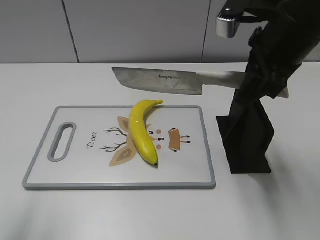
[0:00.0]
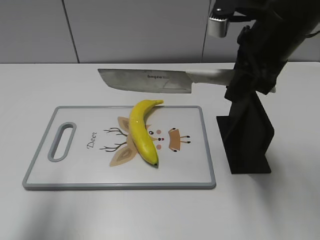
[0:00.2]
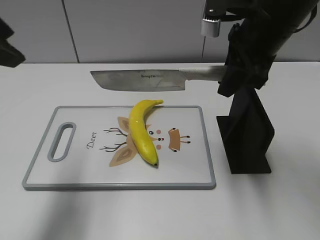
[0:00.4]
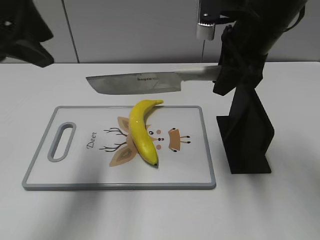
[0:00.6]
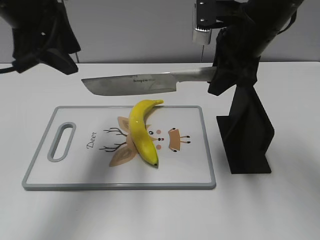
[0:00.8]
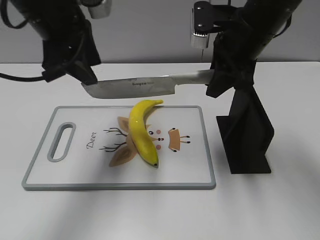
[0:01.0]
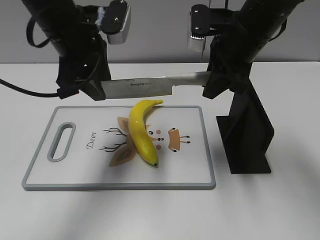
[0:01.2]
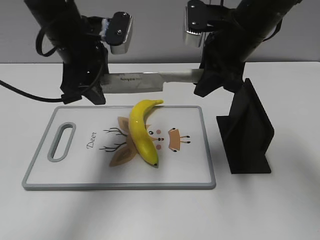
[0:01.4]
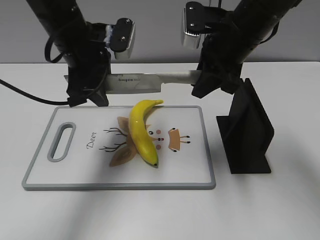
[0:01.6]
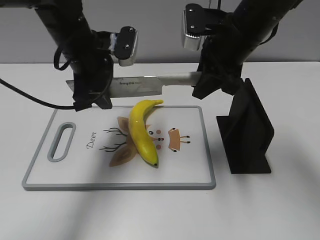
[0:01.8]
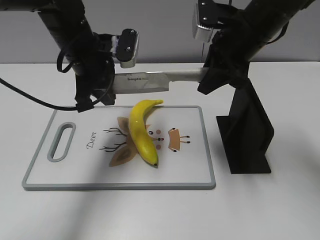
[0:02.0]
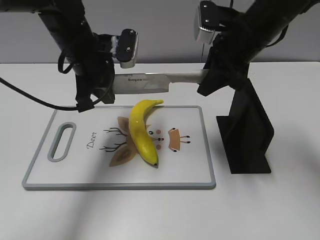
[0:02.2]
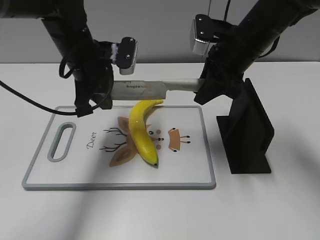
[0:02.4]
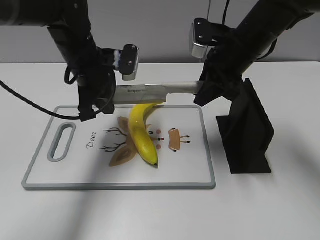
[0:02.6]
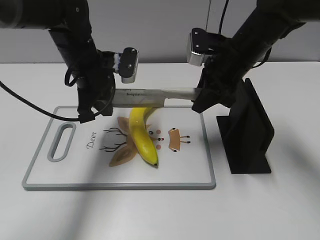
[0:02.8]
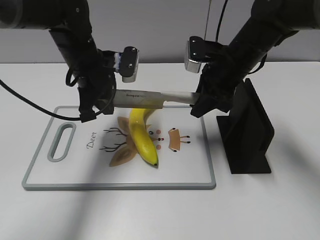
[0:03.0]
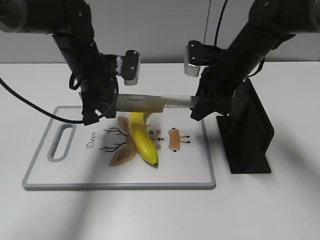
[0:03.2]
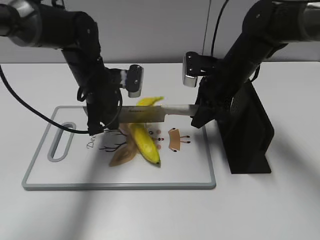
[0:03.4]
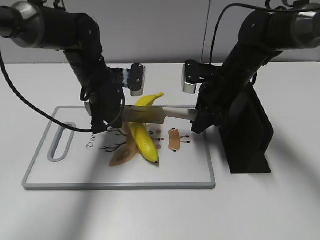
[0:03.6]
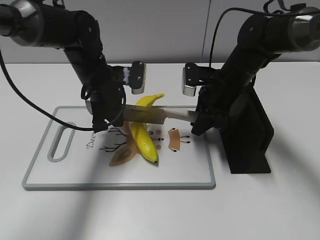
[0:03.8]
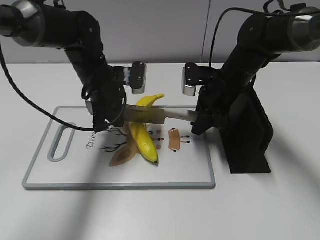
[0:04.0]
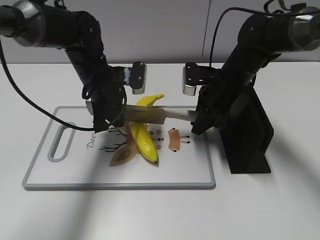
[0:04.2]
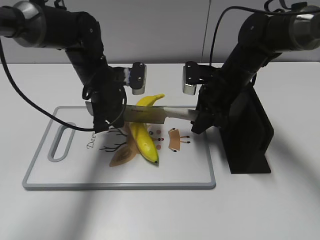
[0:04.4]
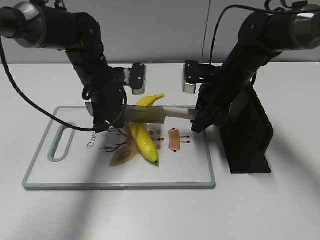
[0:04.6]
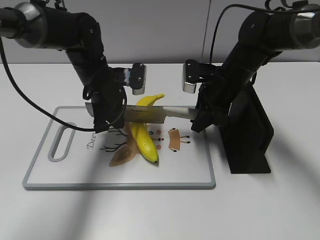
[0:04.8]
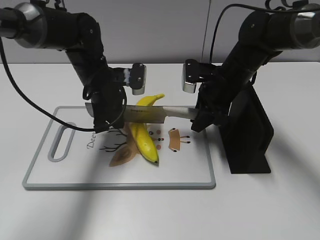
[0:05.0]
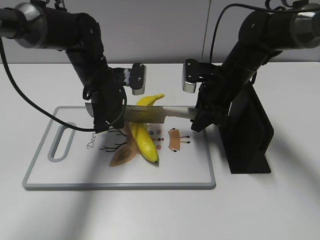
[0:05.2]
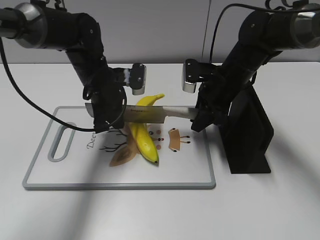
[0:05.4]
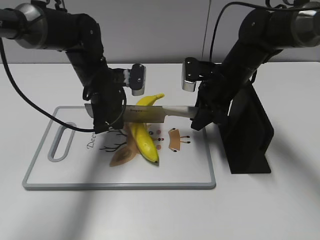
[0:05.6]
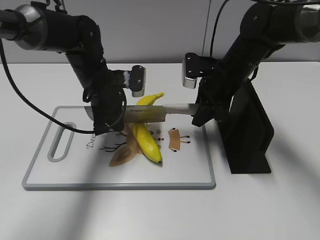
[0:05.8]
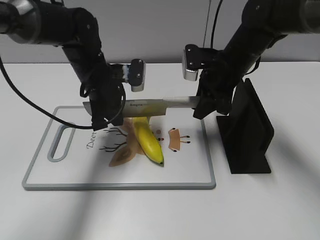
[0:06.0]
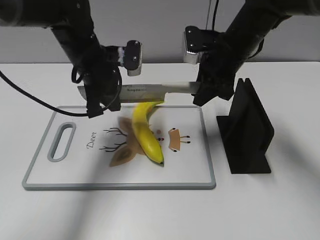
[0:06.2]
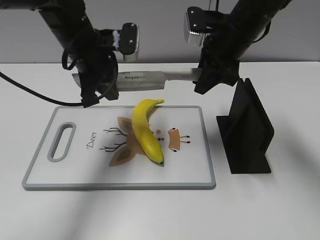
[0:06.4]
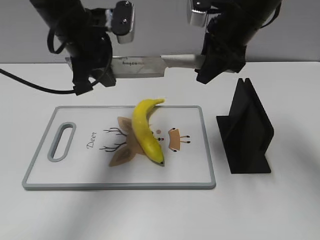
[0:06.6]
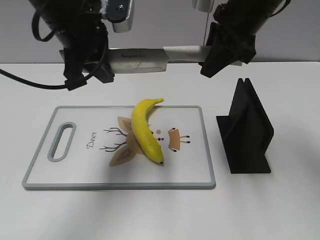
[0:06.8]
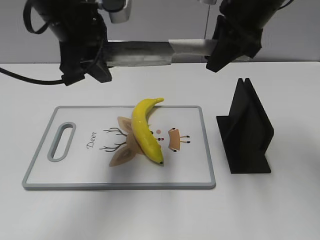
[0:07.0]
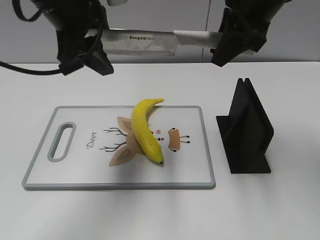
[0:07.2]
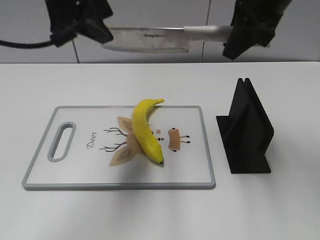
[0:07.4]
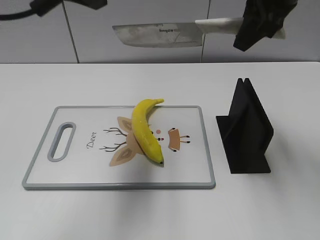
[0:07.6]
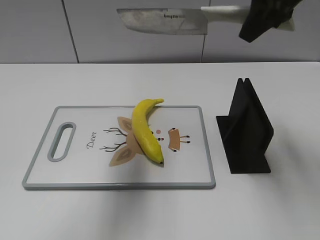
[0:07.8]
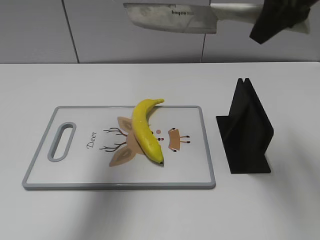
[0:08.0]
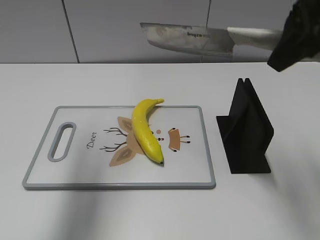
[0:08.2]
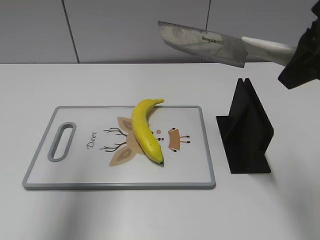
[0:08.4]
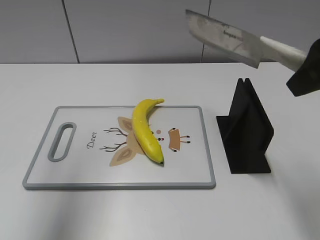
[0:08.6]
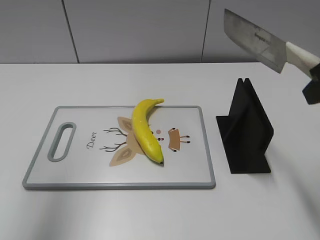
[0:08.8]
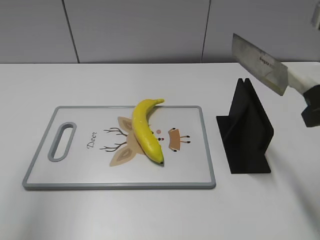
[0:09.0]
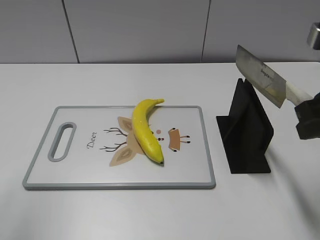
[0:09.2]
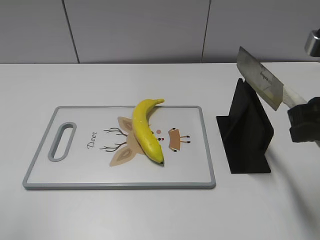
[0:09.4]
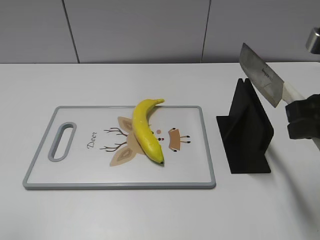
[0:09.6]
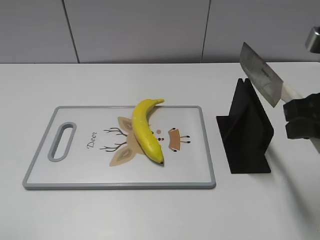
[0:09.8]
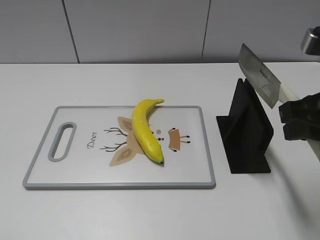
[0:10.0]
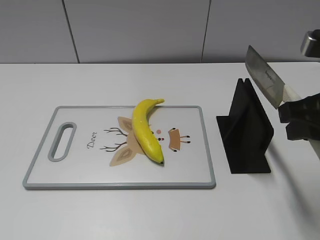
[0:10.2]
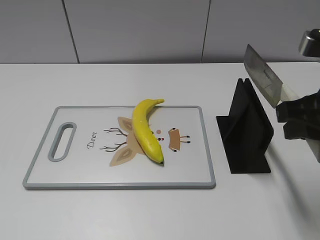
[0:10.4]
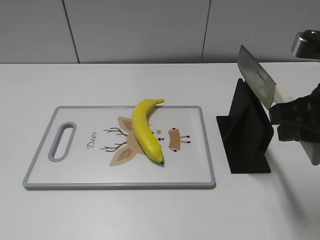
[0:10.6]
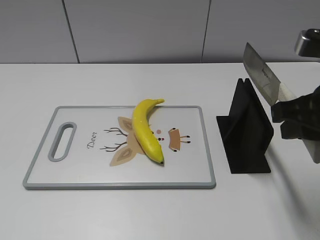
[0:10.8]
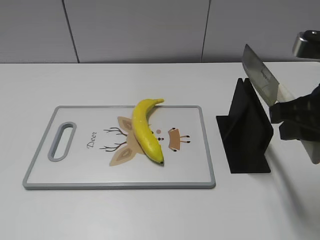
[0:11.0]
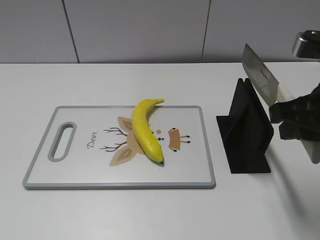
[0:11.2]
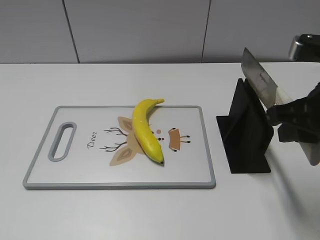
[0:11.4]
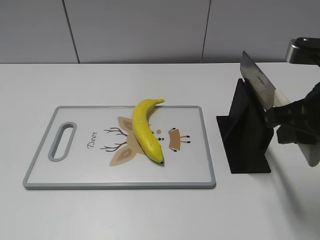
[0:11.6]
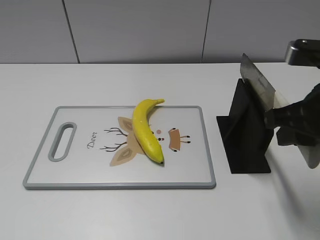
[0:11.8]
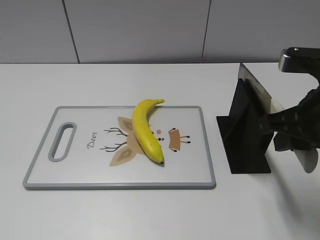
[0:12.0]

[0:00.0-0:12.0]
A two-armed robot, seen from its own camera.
Task of the whole recording: cut plastic banana.
Step, 0:00.0 to 0:04.4: Hold the blade with your left hand.
Step, 0:04.6 to 0:08.8: Cut the banana with your right hand.
0:00.0 to 0:01.6: The left gripper heads forward, to the right and downward, covering some 30 cm, while the right gripper goes roughly 5 cm forward.
0:01.6 to 0:03.0: The two grippers go some 5 cm downward. The left gripper closes.
0:03.0 to 0:04.4: The right gripper shifts some 5 cm downward.
0:04.4 to 0:06.0: There are only small adjustments of the grippers.
0:06.0 to 0:07.6: Both grippers travel together upward, some 20 cm. The left gripper opens up.
0:07.6 to 0:09.0: The right gripper shifts about 15 cm backward and to the right. The left gripper moves to the left and backward, roughly 15 cm.
0:09.0 to 0:10.4: The left gripper heads backward and downward, covering approximately 25 cm.
0:10.4 to 0:12.0: The grippers move only a little.

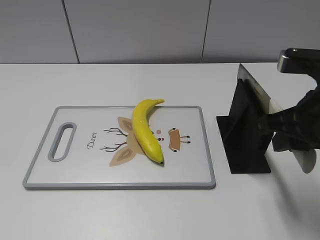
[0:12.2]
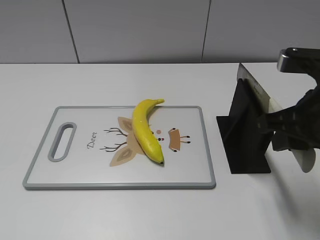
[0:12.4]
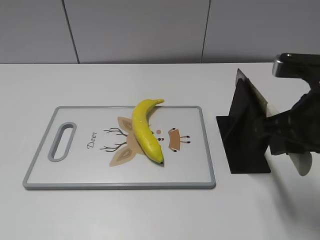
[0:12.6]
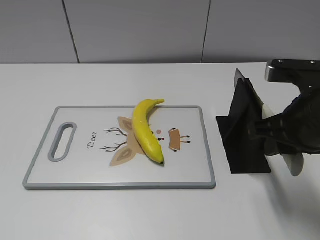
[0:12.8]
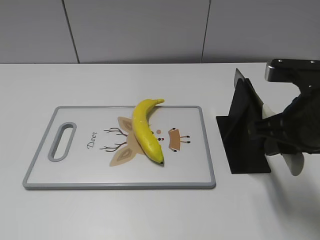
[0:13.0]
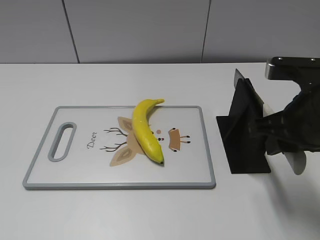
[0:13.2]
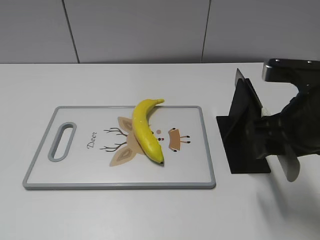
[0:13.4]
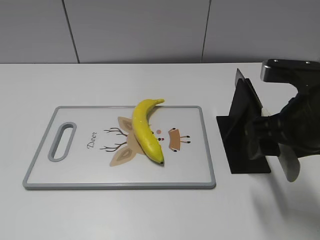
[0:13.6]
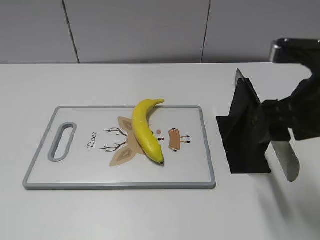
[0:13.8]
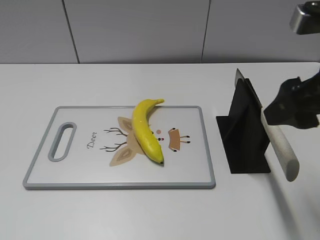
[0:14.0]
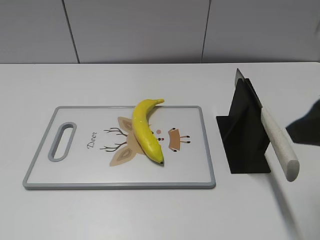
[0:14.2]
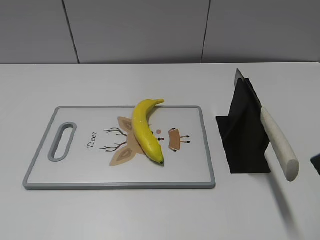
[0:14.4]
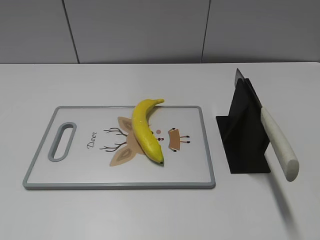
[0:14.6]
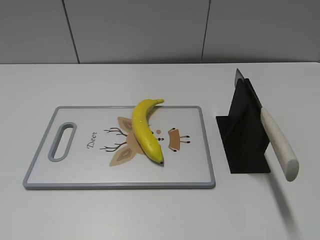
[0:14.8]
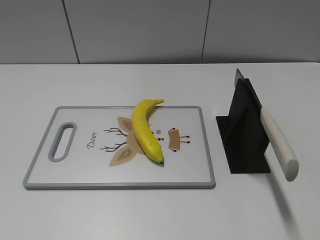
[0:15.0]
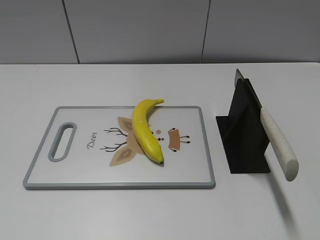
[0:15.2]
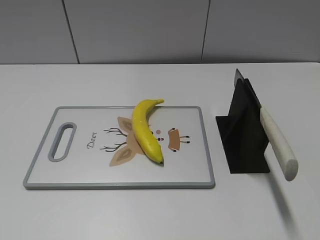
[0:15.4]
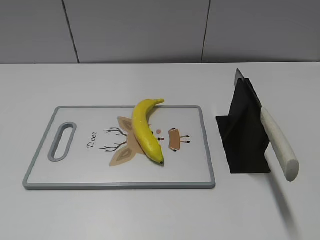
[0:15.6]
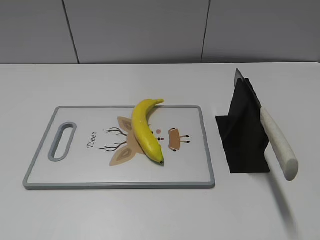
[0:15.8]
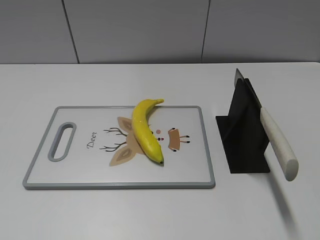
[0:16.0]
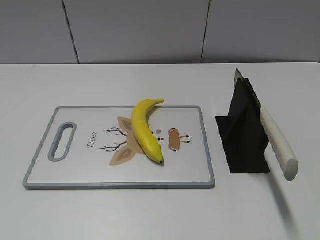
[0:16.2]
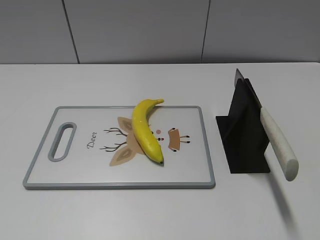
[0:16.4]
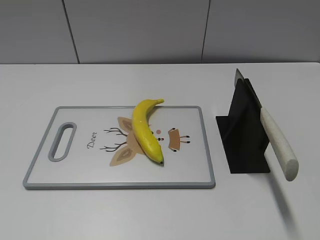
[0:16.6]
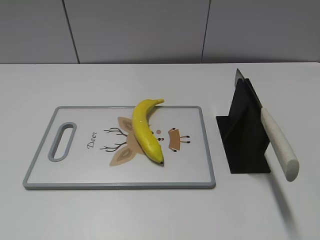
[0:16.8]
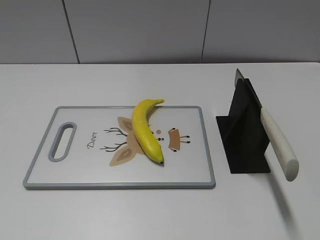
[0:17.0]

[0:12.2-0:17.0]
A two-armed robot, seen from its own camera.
Task of the whole recording: cut plastic banana.
Step, 0:12.2 to 0:17.0: Place the knife on the storage rack with your right hand.
0:12.2 to 0:13.8: The right gripper opens up.
0:13.8 to 0:15.4: The right gripper heads backward and to the right, covering about 25 cm.
